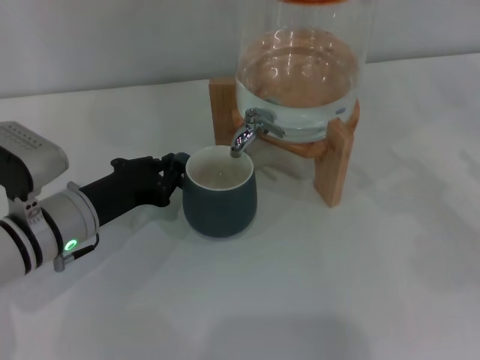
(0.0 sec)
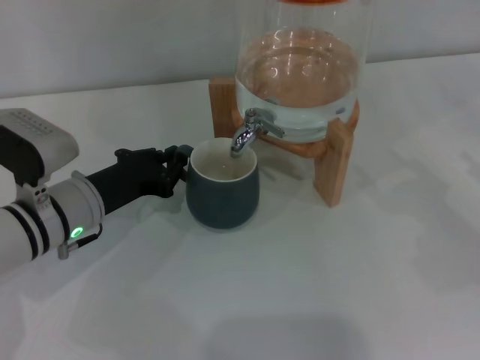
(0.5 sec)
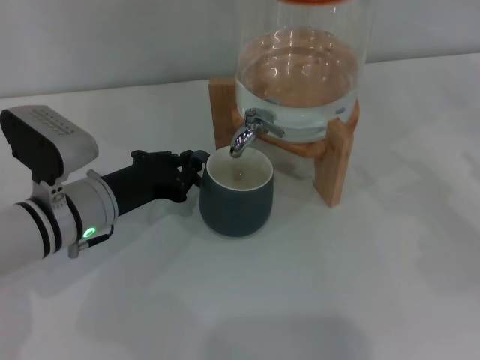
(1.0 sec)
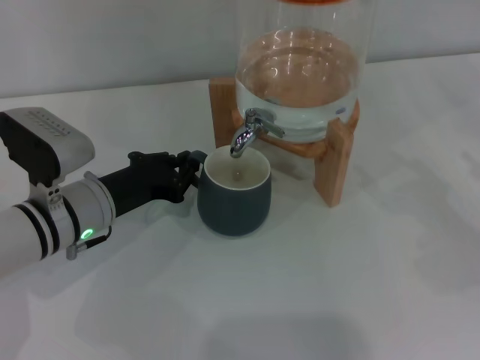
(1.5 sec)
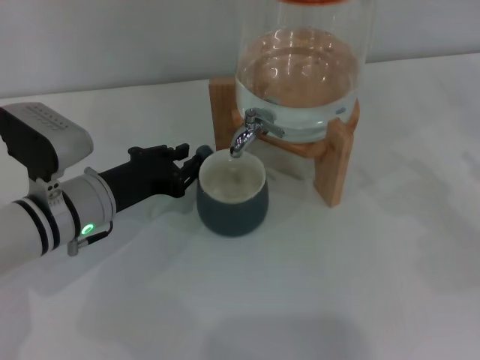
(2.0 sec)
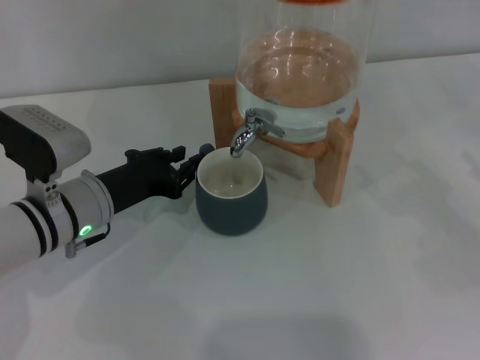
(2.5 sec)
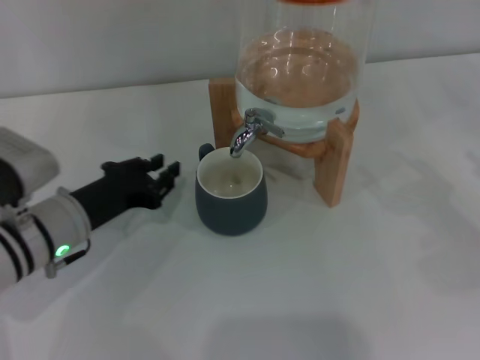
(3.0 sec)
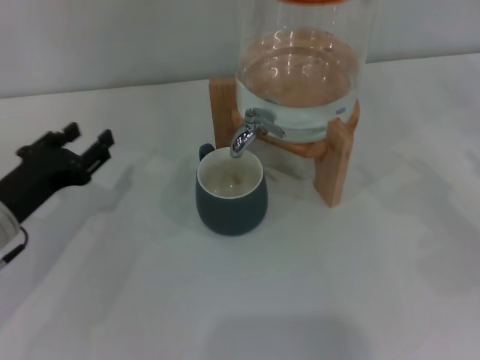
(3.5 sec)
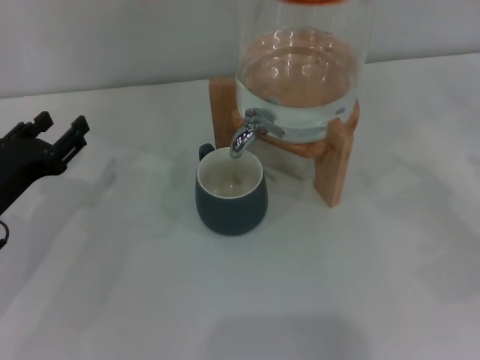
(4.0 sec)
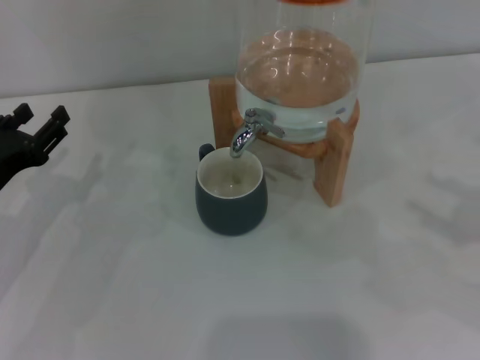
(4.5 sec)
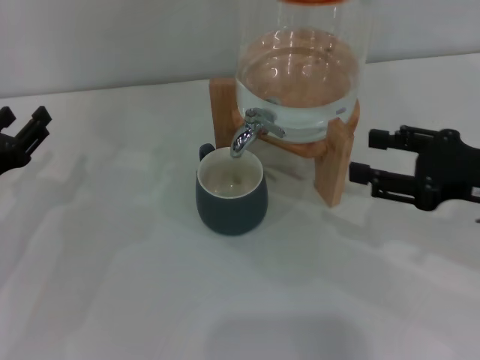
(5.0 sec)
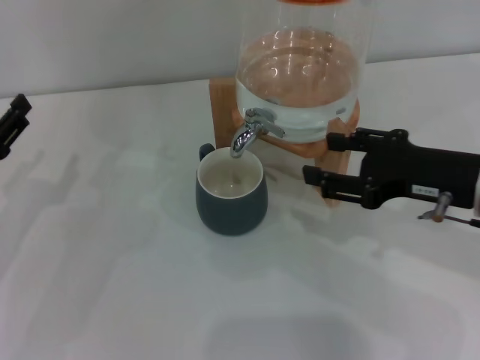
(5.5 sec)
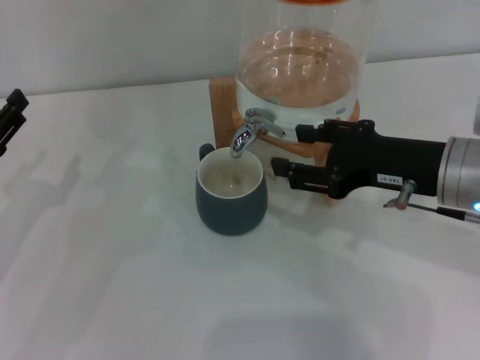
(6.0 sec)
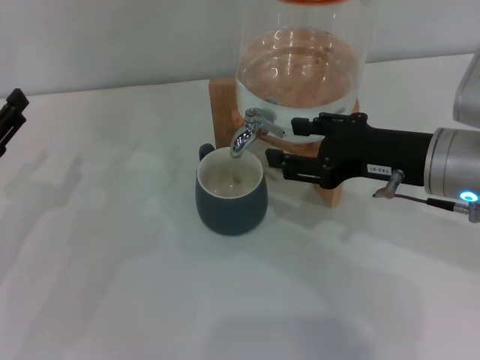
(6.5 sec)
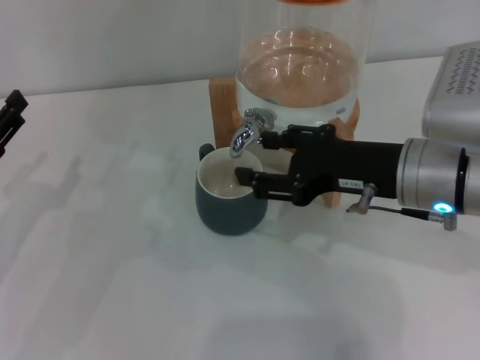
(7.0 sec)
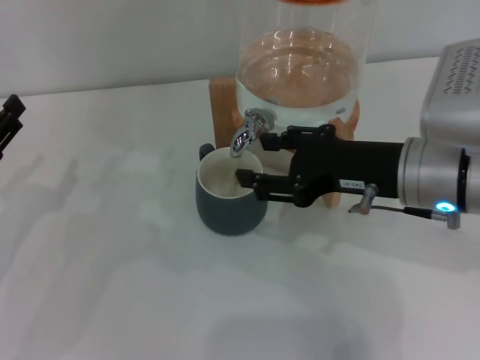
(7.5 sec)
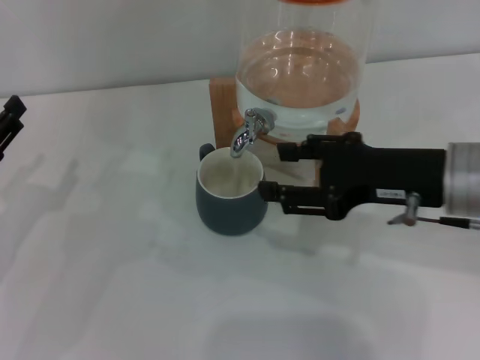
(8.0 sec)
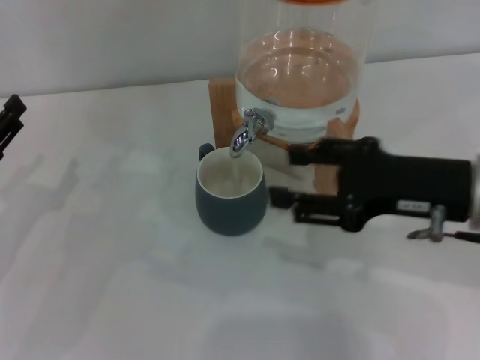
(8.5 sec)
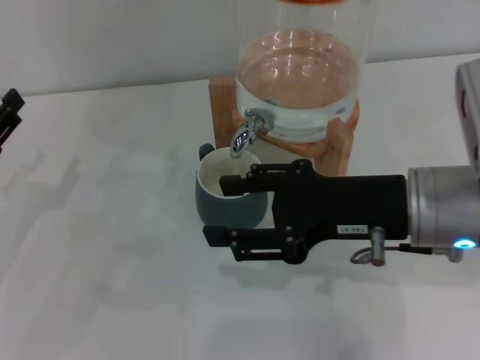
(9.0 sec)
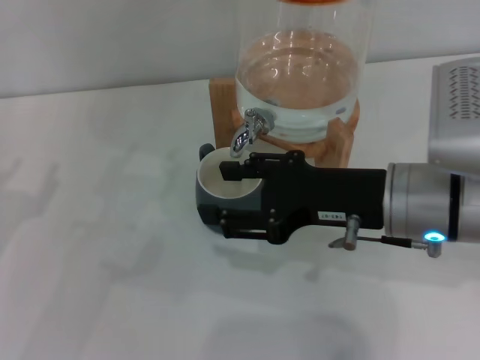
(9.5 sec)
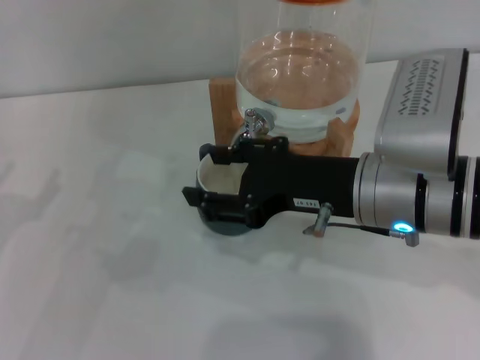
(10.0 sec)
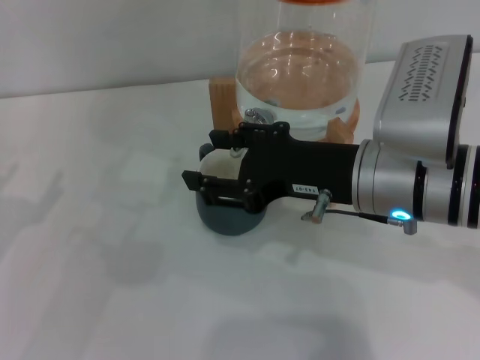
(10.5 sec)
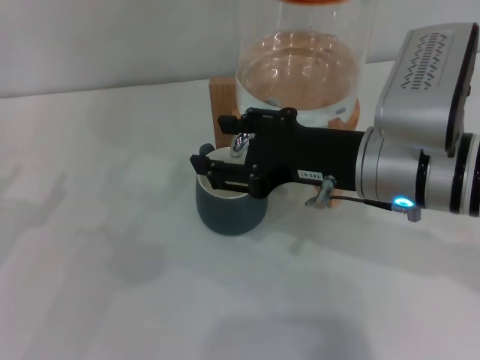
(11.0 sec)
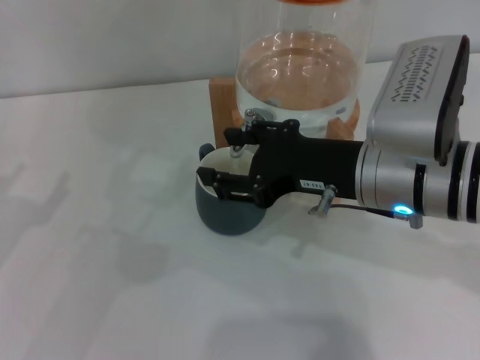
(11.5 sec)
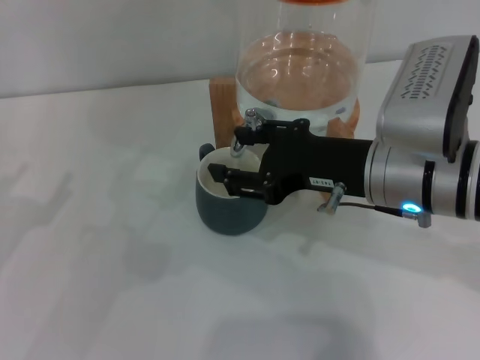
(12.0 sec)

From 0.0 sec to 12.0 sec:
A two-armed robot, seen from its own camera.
Task of the whole recording: the left gripper pick up the black cup and place it horizontally under the faucet, the right gripper turn on the faucet to fill the cup, and then turn off the faucet.
Step, from 0.0 sec to 2.5 sec: Move the cup beneath the water dispenser nozzle with the left gripper.
Step, from 3.0 sec to 9.5 sec: Open the dispenser valve and fill the cup with water with the right gripper.
From 0.0 sec to 2.0 sec: The grippers make only small movements.
From 2.0 sec to 4.0 sec: The left gripper goes about 10 cm to the left, and opens.
From 4.0 sec to 6.0 sec: The right gripper heads to the left, covering about 20 cm.
From 6.0 sec to 8.0 sec: The grippers make only small movements.
From 8.0 sec to 10.0 sec: The right gripper goes about 5 cm to the left.
From 10.0 sec to 12.0 sec: The grippers make only small movements.

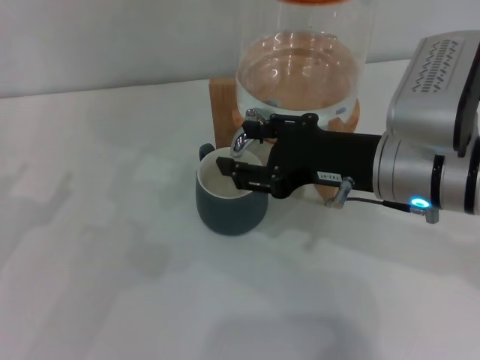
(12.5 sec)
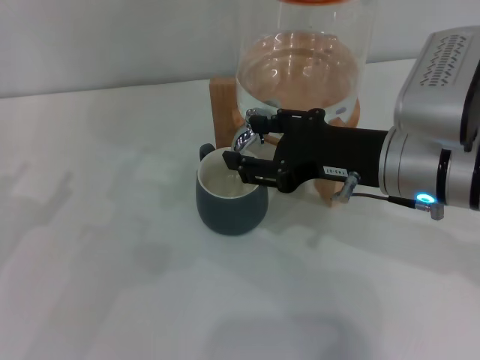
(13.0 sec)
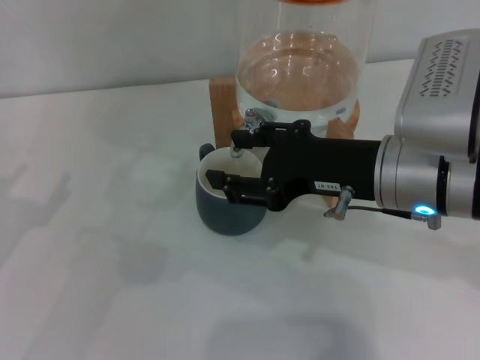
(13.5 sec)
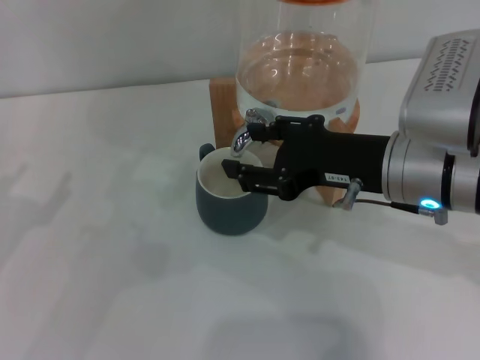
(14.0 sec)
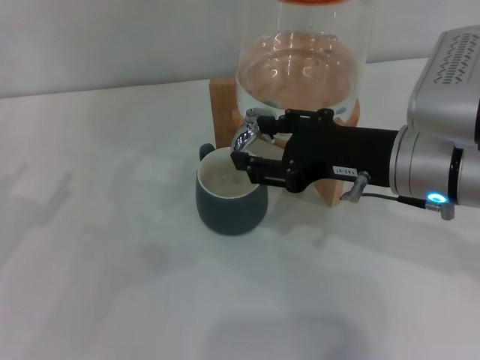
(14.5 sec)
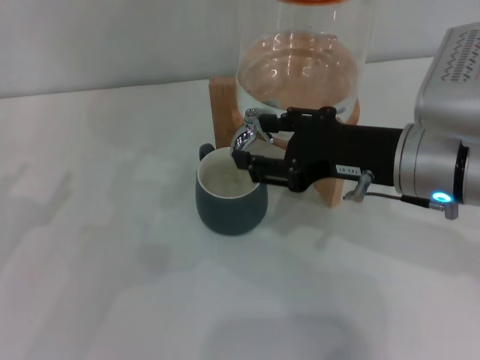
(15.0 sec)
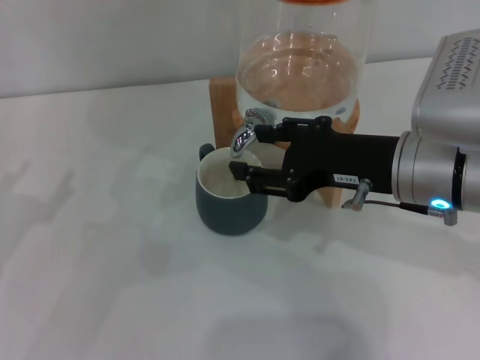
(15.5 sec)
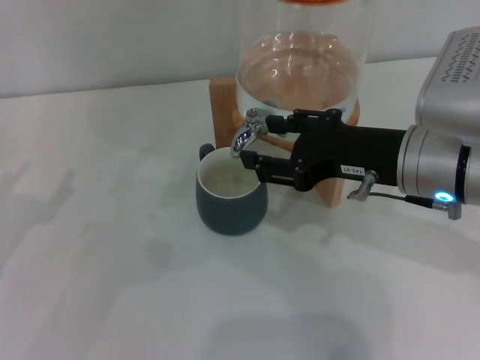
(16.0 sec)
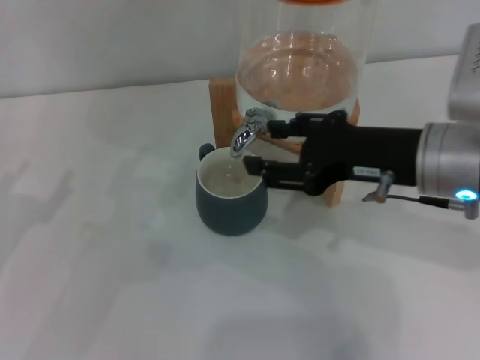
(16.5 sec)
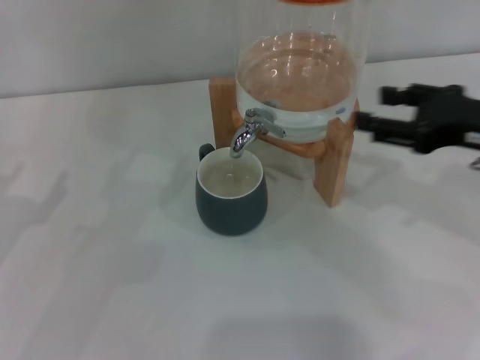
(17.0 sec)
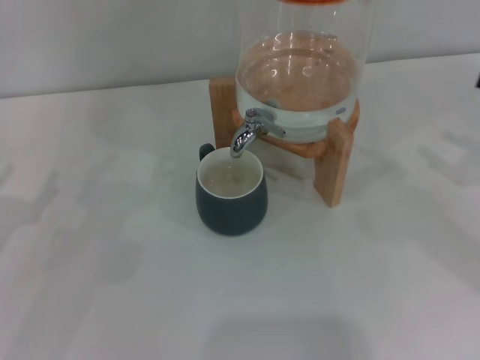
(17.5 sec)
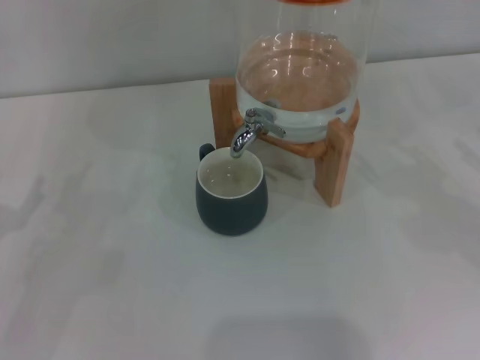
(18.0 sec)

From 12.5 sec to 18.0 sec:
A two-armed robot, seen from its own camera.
Task of the whole recording: the left gripper pick up the black cup and place it horizontally under the faucet, the right gripper turn on the faucet to fill the cup, and then turn off the faucet.
Step, from 12.5 sec to 16.5 sec: Close the dispenser valve with the right gripper.
From 12.5 sec to 14.5 sec: Both grippers stay put.
From 14.5 sec to 16.0 sec: Neither gripper changes place.
From 16.0 sec to 18.0 sec: The right gripper is displaced to the right by some 25 cm.
